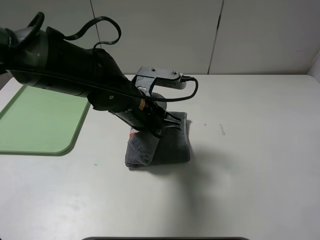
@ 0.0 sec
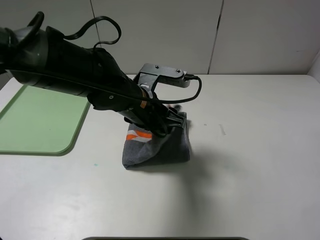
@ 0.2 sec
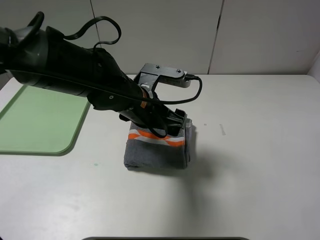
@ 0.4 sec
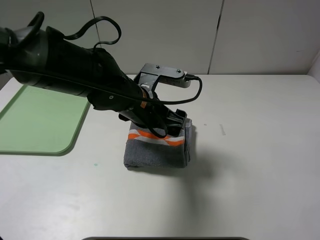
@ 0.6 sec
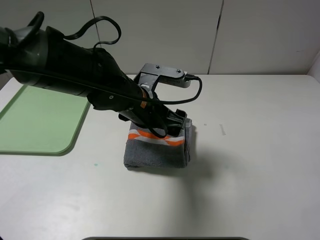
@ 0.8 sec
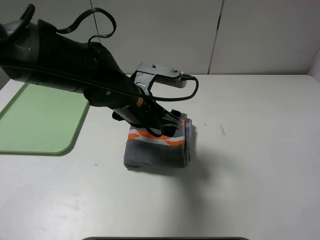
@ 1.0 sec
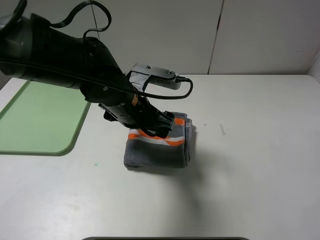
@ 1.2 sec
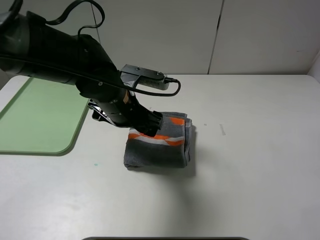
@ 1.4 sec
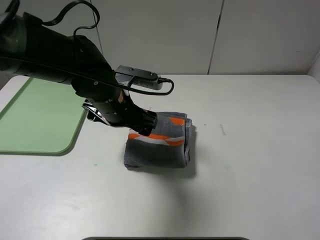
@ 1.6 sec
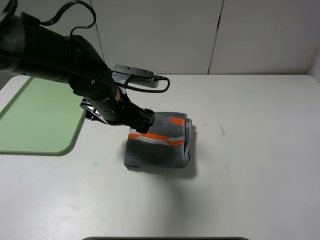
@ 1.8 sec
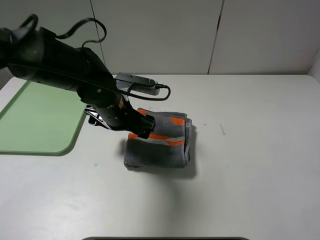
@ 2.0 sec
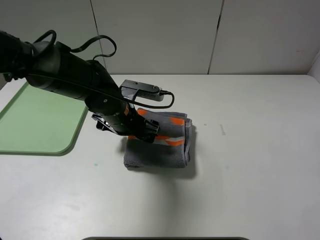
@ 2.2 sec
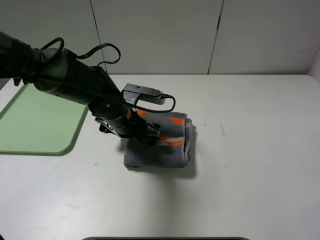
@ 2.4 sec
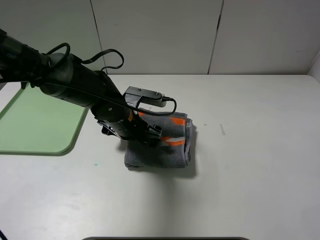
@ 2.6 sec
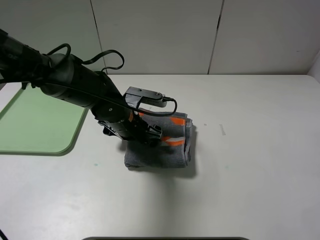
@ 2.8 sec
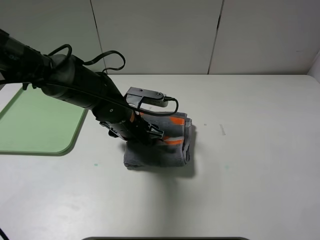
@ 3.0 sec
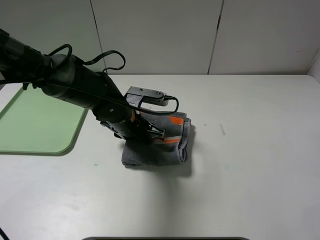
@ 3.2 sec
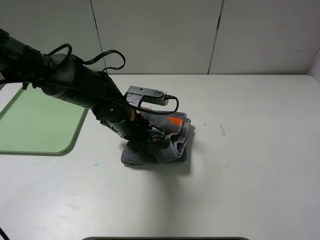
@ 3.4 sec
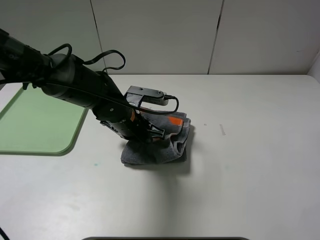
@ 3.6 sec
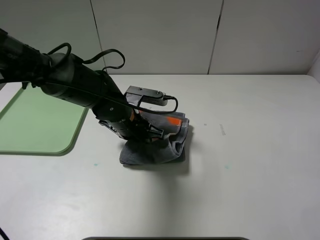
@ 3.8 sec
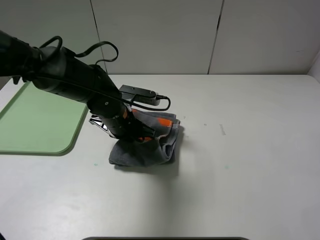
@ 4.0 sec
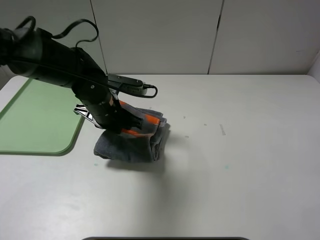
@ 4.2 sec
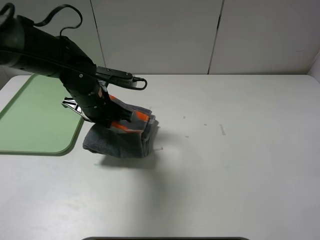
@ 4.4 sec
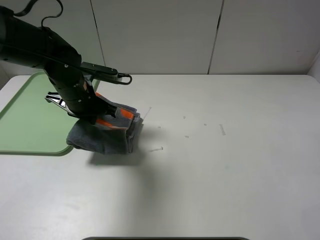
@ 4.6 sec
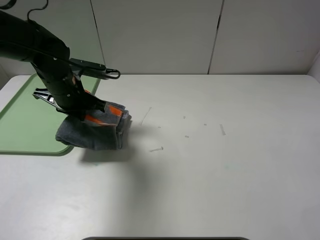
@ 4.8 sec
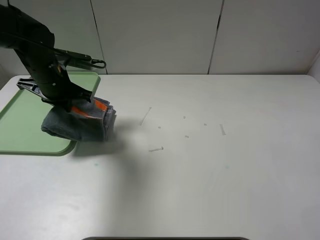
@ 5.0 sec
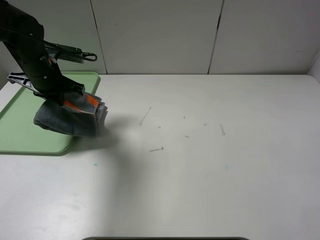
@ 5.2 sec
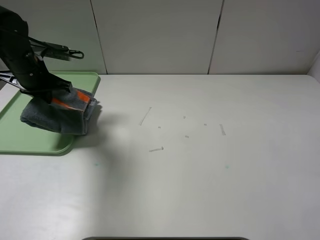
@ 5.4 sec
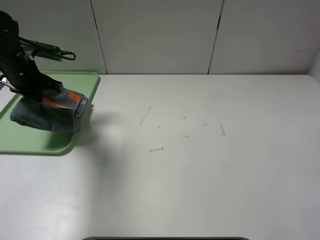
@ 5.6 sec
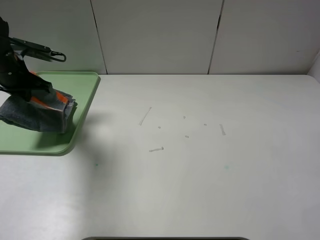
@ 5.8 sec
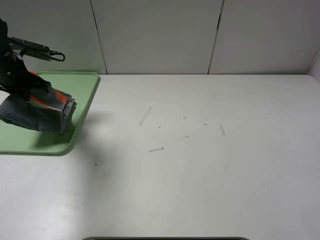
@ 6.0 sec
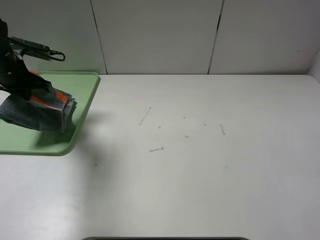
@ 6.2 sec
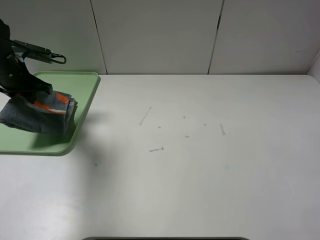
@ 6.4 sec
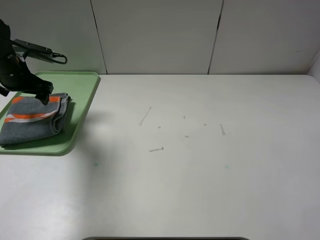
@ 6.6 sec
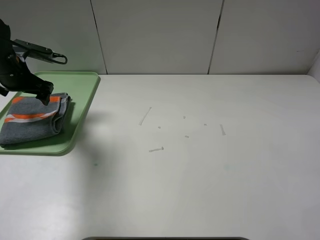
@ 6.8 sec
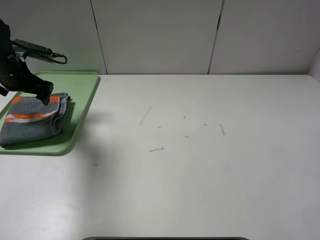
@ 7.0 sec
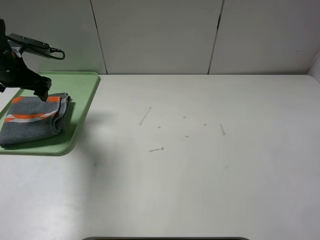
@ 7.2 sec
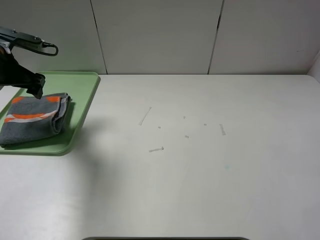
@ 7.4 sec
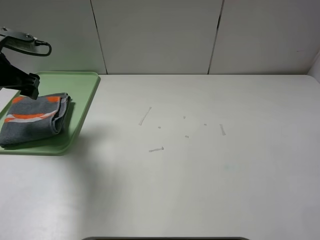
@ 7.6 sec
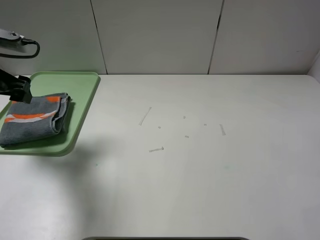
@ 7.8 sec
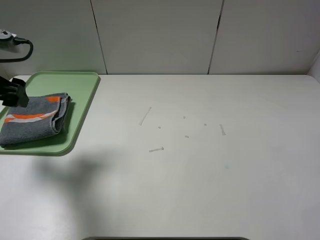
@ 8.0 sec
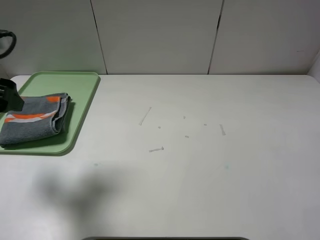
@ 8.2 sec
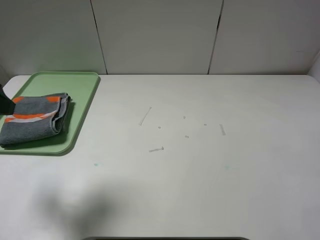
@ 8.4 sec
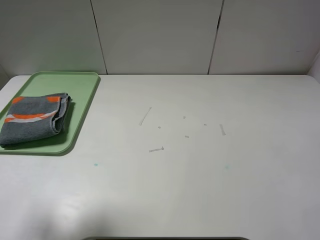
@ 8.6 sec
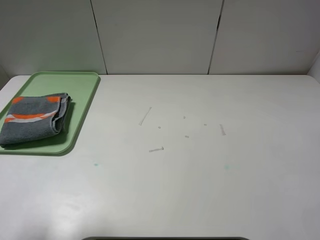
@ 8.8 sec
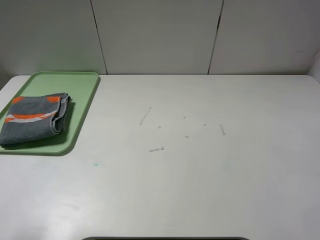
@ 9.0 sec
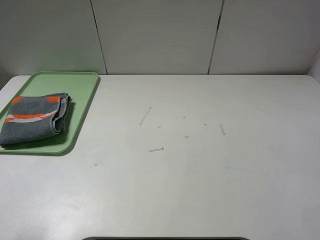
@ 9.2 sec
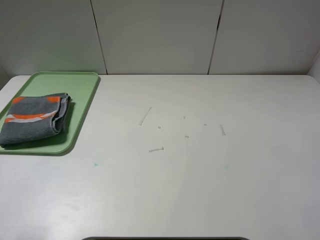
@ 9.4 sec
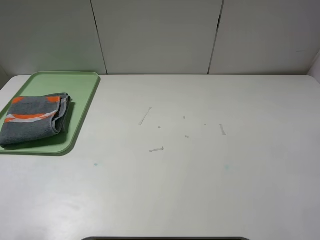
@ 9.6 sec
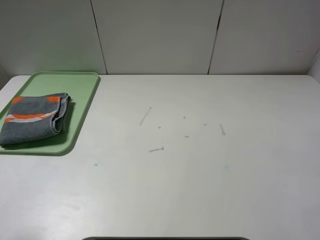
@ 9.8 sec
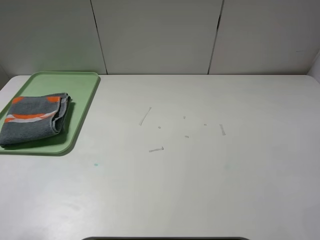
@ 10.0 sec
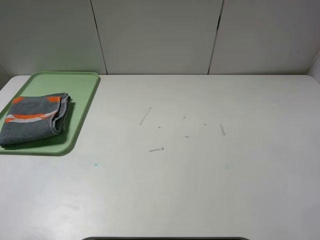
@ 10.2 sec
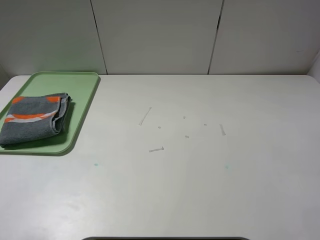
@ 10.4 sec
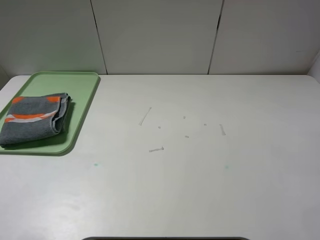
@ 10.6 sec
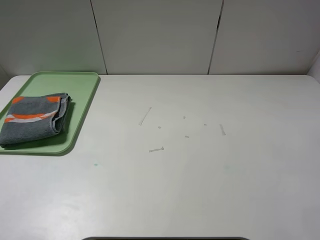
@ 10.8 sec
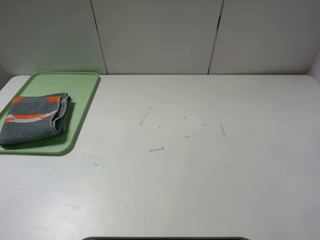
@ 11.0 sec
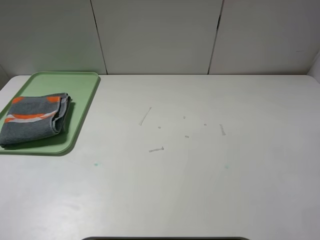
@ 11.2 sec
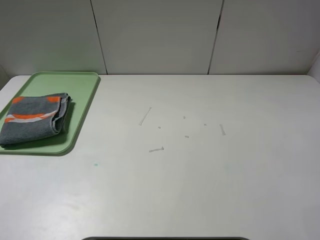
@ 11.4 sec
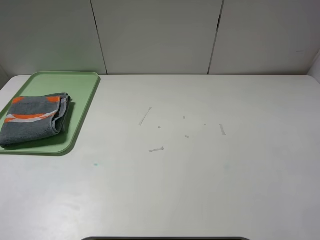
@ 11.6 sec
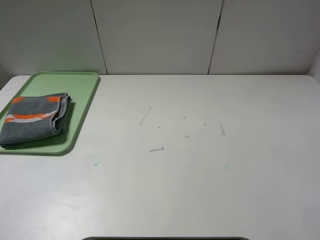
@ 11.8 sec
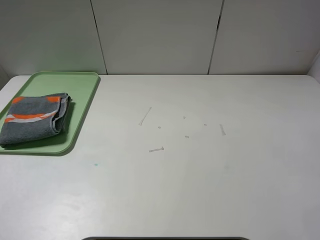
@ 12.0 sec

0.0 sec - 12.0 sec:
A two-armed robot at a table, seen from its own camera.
Step, 0.6 sec - 6.4 sec: Place the folded grey towel on the tray with the left gripper.
0.0 sec - 1.6 sec: The left gripper opens up.
1.6 sec - 3.0 sec: The left gripper heads downward, covering some 5 cm, and closes up.
3.0 sec - 4.4 sec: The left gripper is displaced to the left and upward by approximately 10 cm, and closes its fingers.
4.4 sec - 6.0 sec: The left gripper shifts about 20 cm to the left.
6.0 sec - 7.6 sec: The left gripper goes roughly 5 cm backward, and opens.
7.6 sec - 9.0 sec: The left gripper heads backward, covering some 25 cm.
